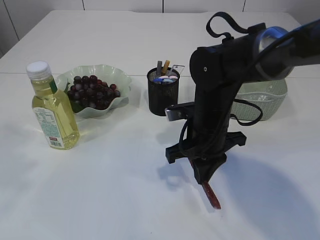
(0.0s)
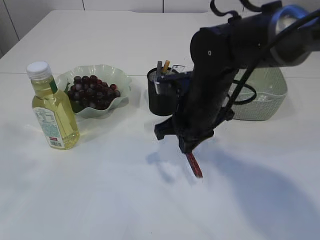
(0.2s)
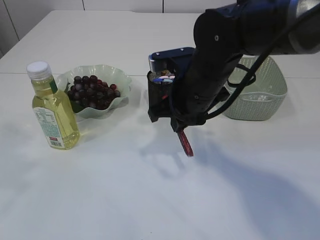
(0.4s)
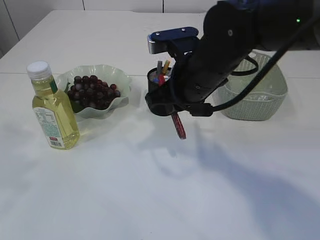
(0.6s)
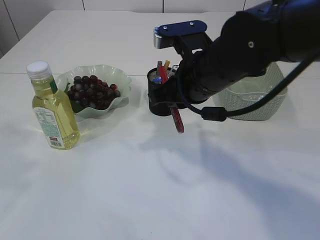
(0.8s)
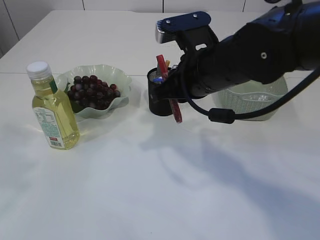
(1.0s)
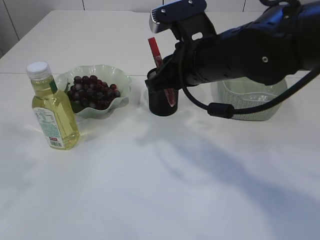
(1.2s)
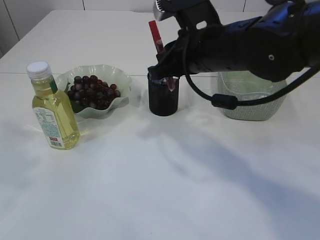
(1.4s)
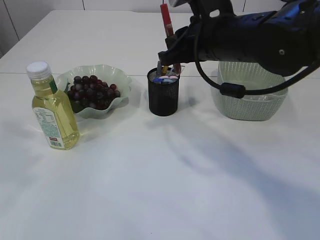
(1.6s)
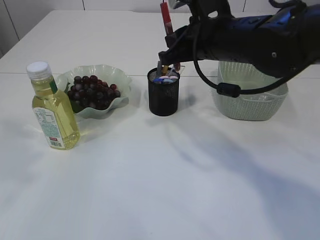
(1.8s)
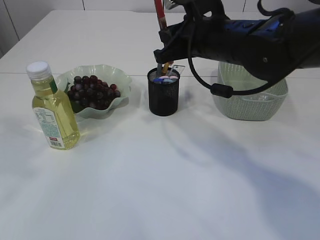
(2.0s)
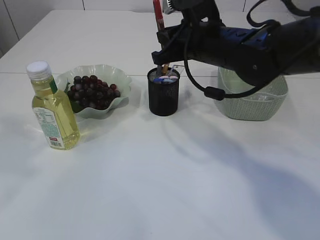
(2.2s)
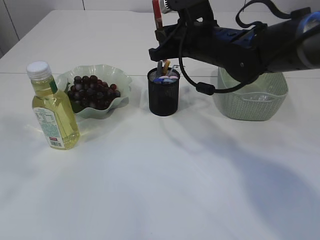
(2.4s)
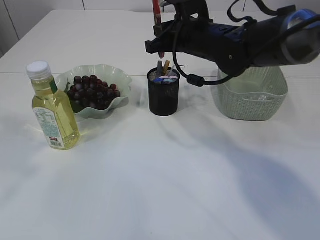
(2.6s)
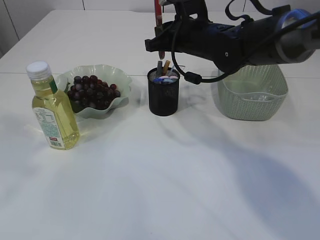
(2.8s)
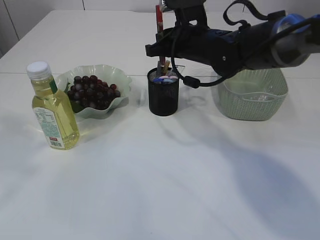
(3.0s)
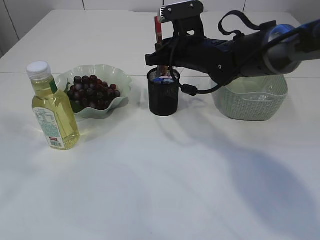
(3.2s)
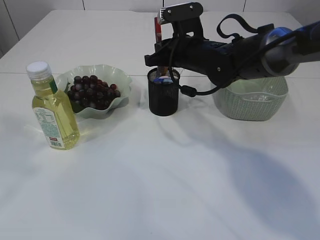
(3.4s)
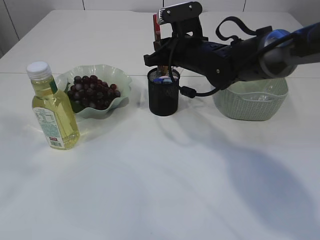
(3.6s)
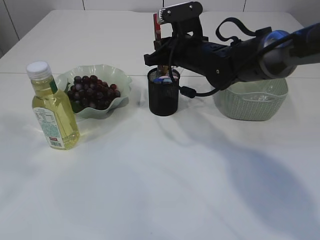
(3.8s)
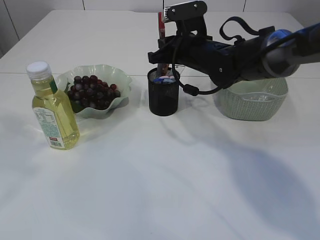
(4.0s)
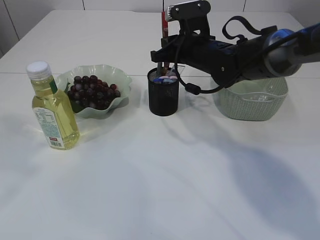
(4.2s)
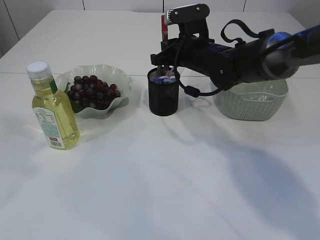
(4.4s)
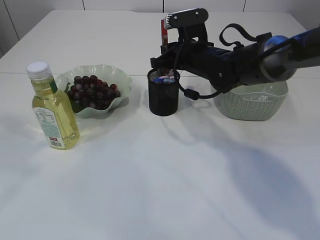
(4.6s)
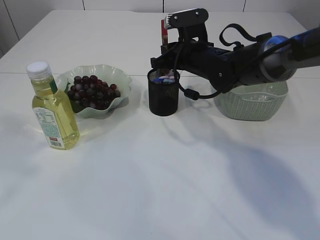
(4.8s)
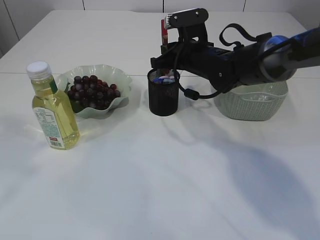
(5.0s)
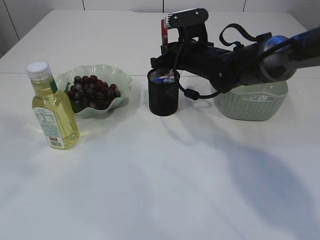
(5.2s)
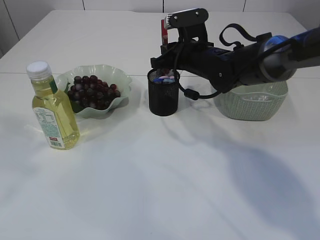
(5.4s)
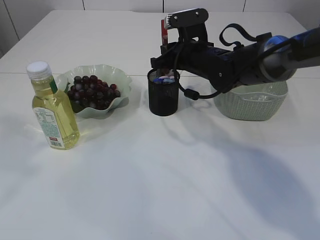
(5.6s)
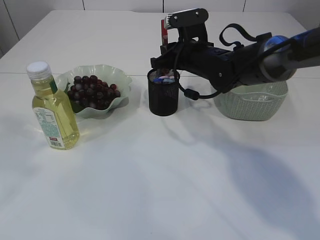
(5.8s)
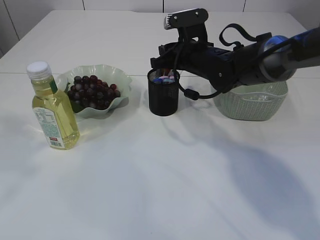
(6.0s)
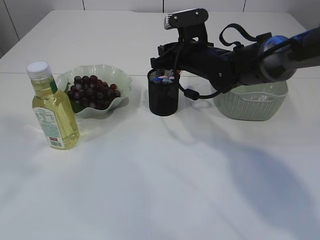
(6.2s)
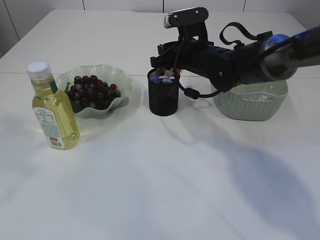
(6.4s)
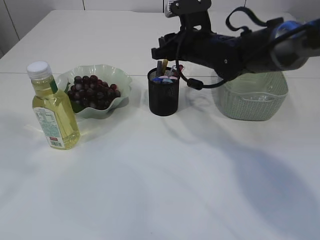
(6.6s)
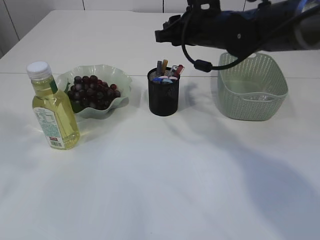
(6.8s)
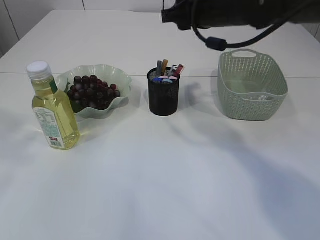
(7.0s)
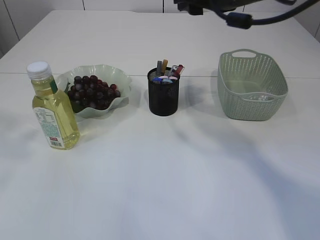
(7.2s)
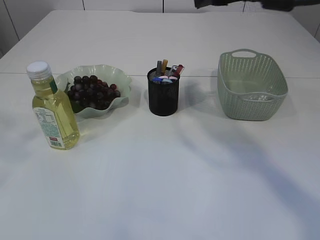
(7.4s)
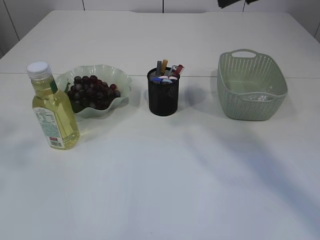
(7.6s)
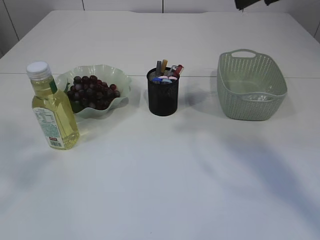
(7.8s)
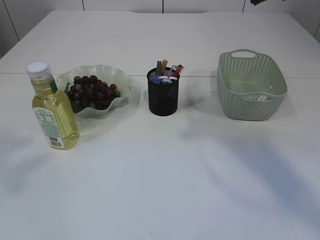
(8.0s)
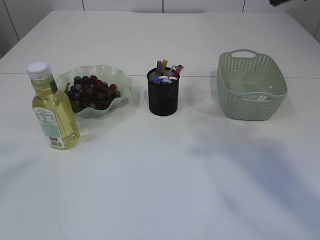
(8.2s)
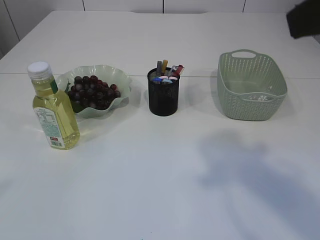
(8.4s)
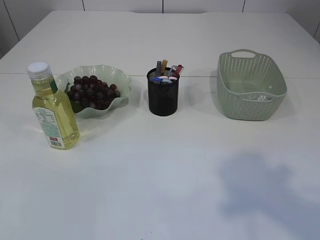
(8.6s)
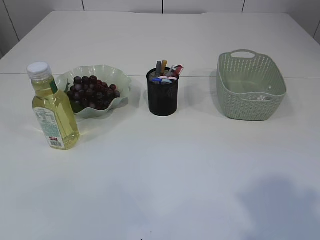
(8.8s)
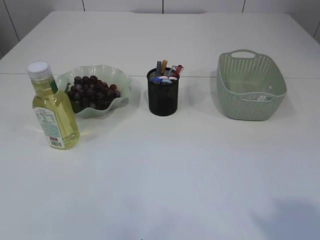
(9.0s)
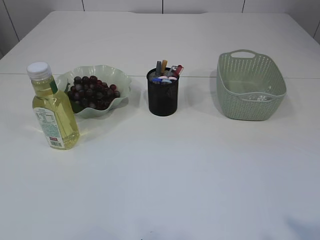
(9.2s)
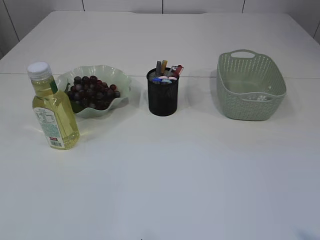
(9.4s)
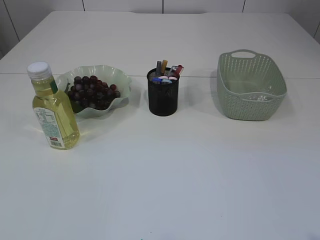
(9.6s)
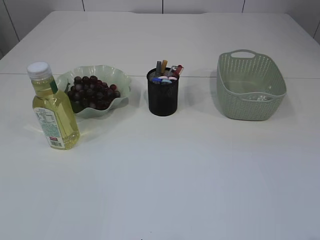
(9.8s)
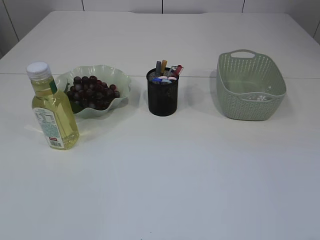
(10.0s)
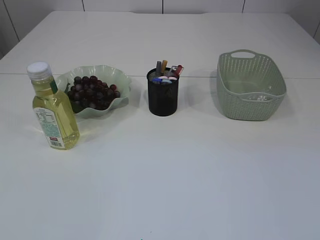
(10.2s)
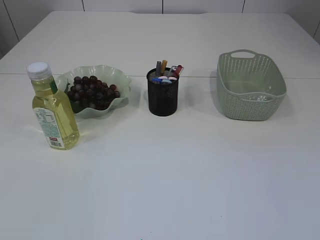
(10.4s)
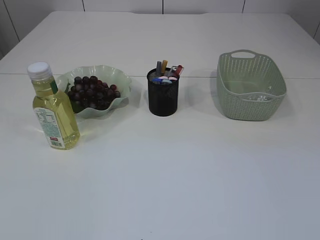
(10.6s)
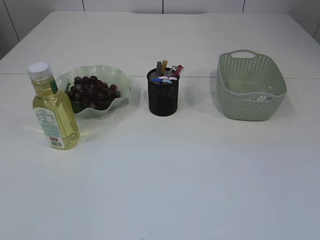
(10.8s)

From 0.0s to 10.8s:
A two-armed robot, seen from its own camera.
Step, from 0.4s to 6.6s: place the red glue into the pen holder.
From 0.0s to 1.6s: The right gripper travels upward by roughly 15 cm.
From 1.6s to 3.0s: The right gripper is displaced forward by roughly 10 cm.
From 3.0s to 4.6s: The grippers make only small movements.
From 4.6s to 6.2s: Neither gripper changes place.
From 6.2s to 7.8s: The left gripper opens up, while the right gripper is displaced upward and backward by about 30 cm.
From 7.8s to 9.2s: The right gripper heads backward, covering about 25 cm, while the left gripper heads backward, downward and to the left, covering some 20 cm.

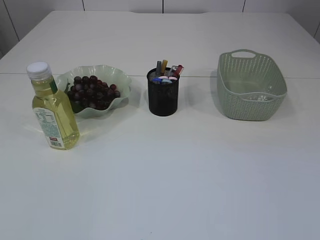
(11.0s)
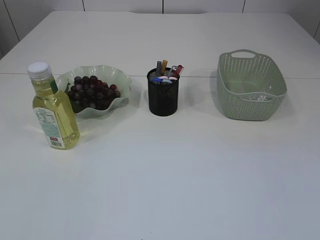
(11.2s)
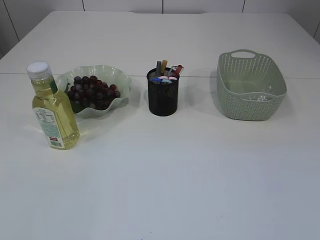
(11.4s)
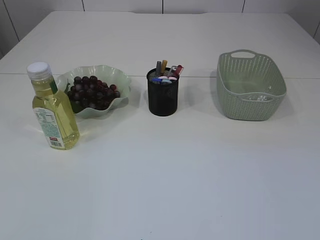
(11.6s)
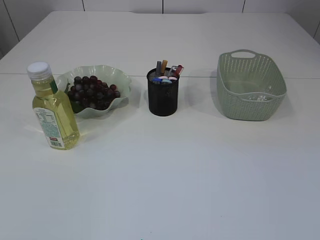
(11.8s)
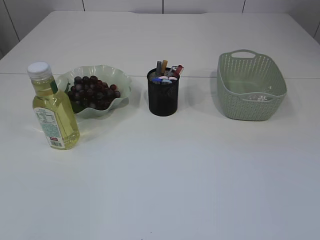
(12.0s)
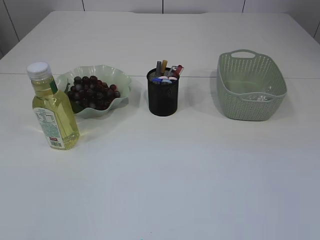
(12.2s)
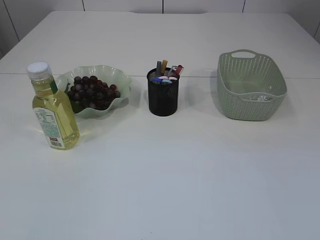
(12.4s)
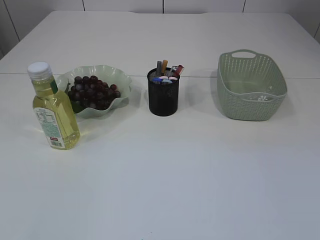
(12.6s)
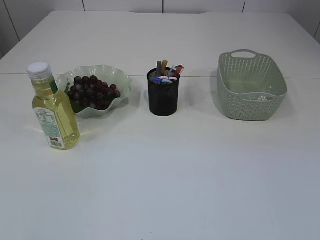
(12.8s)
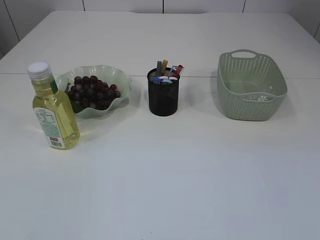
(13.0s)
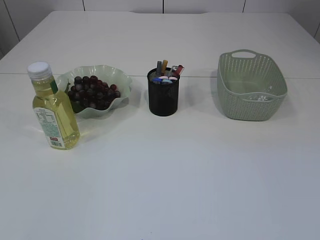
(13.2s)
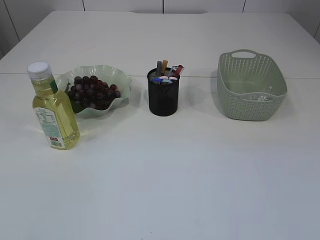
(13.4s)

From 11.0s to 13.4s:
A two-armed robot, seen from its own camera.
From 12.2s to 13.4s: Neither gripper changes place.

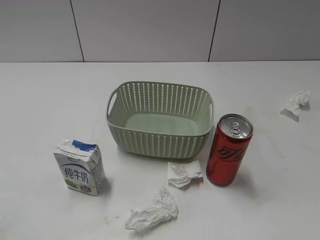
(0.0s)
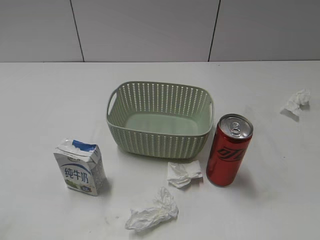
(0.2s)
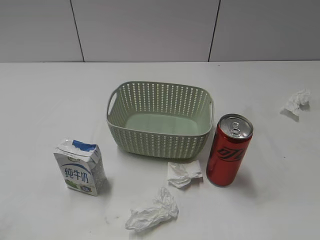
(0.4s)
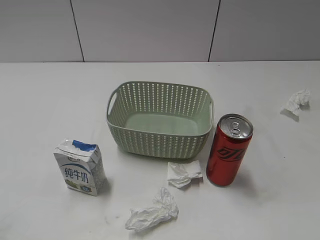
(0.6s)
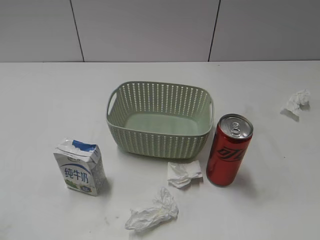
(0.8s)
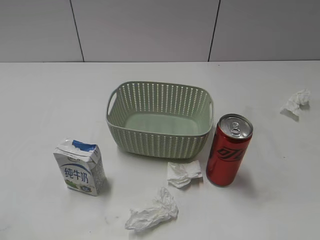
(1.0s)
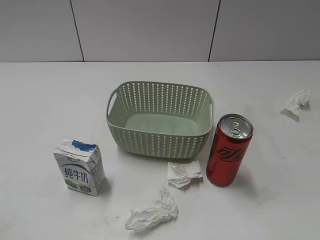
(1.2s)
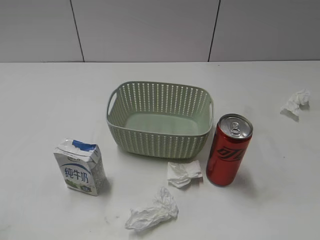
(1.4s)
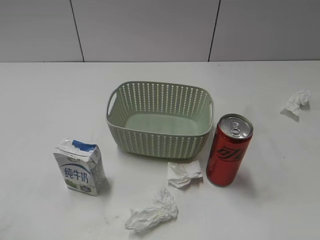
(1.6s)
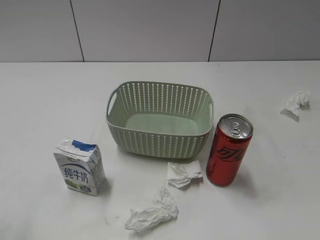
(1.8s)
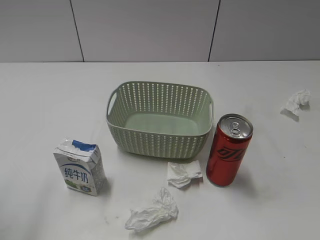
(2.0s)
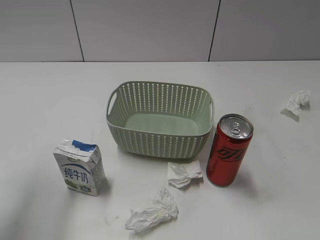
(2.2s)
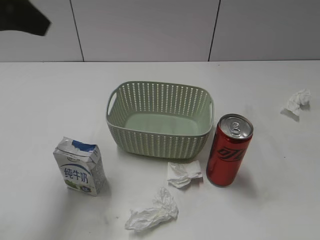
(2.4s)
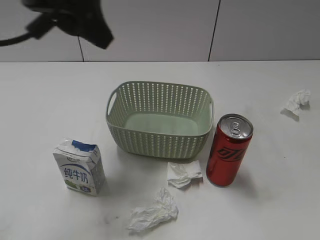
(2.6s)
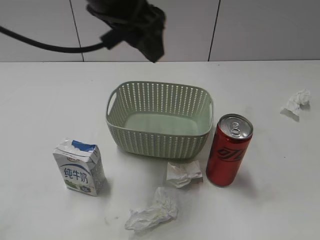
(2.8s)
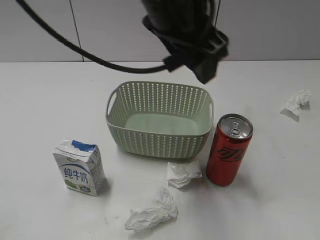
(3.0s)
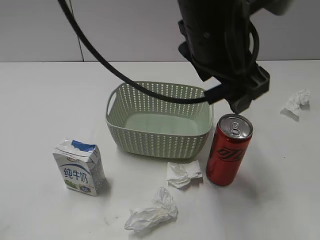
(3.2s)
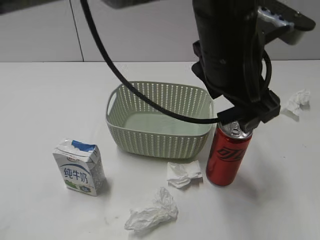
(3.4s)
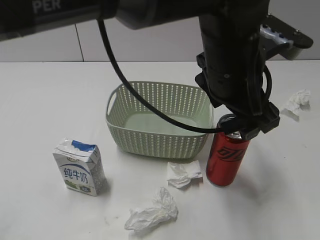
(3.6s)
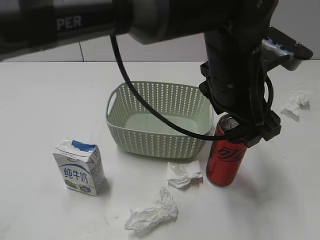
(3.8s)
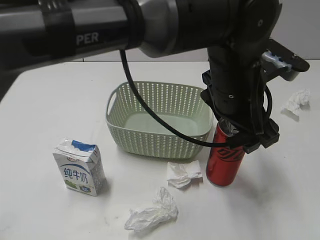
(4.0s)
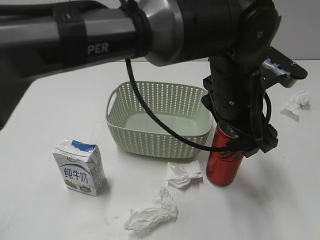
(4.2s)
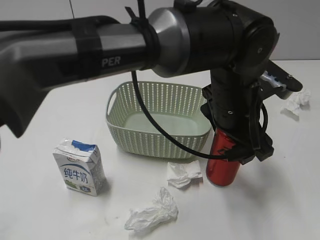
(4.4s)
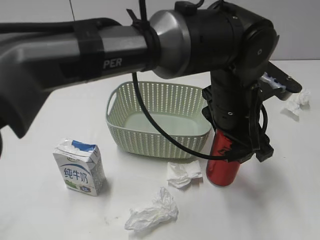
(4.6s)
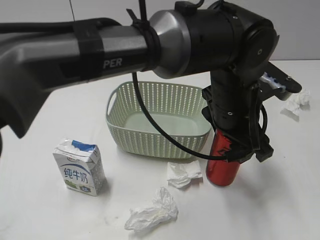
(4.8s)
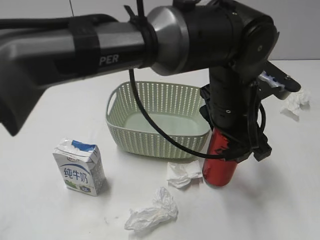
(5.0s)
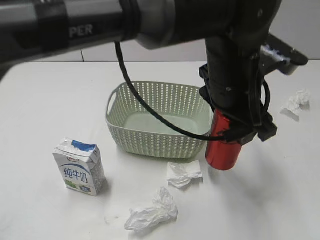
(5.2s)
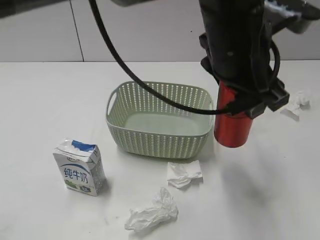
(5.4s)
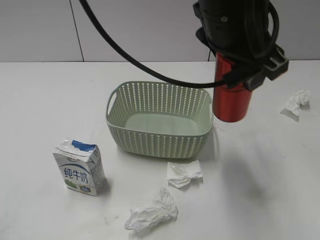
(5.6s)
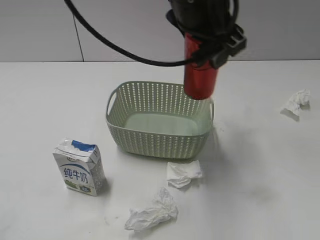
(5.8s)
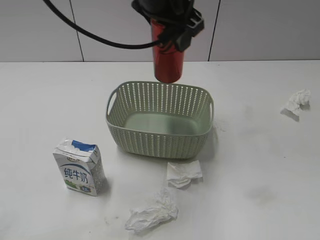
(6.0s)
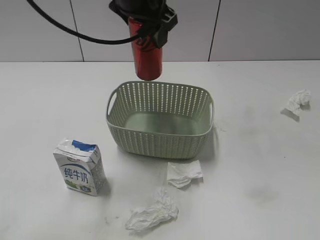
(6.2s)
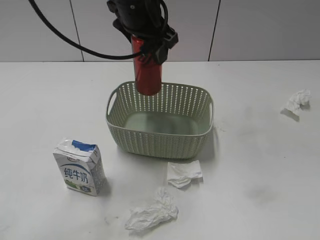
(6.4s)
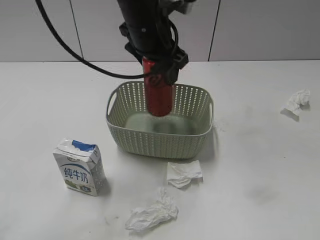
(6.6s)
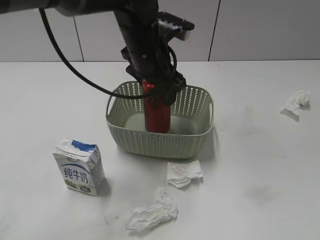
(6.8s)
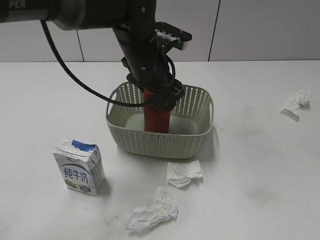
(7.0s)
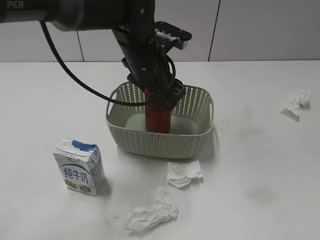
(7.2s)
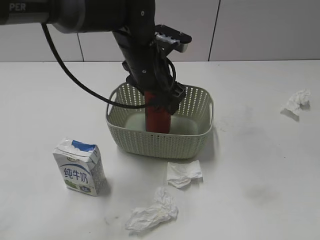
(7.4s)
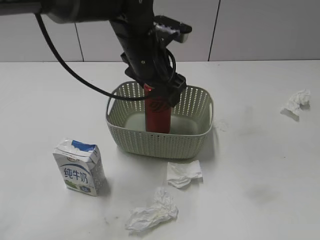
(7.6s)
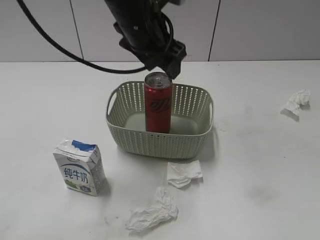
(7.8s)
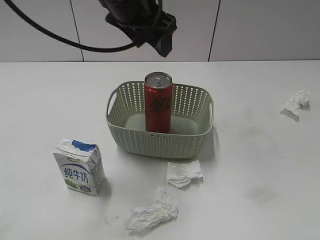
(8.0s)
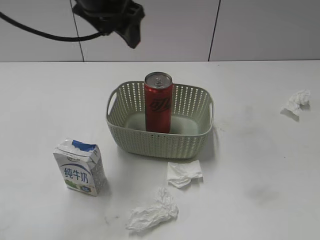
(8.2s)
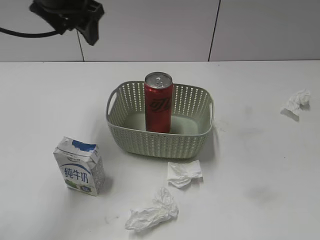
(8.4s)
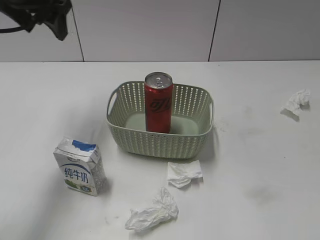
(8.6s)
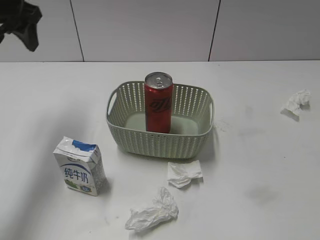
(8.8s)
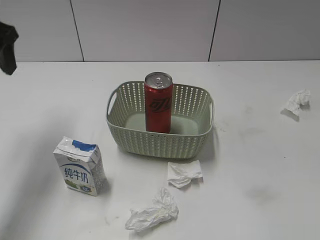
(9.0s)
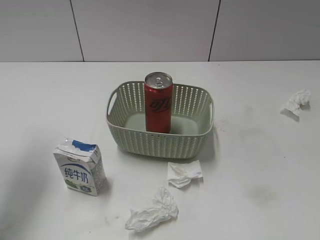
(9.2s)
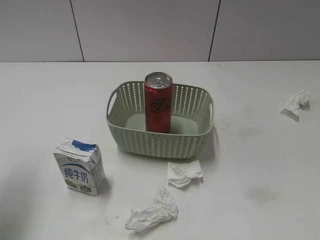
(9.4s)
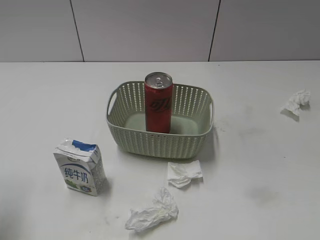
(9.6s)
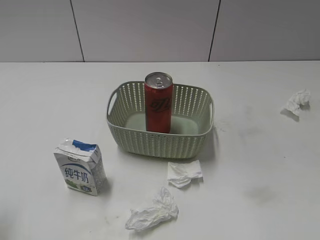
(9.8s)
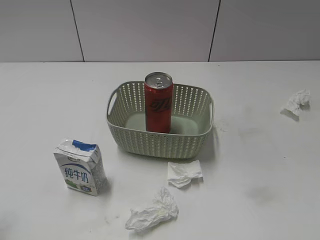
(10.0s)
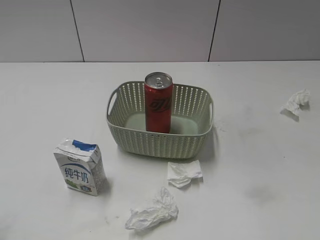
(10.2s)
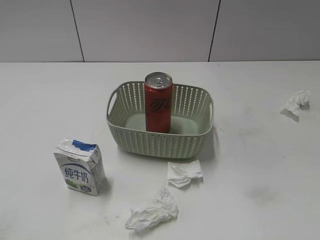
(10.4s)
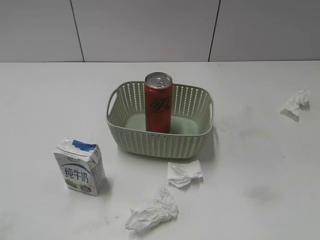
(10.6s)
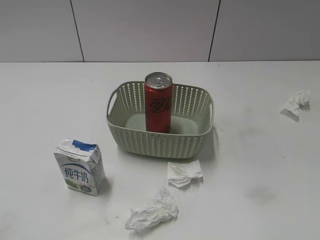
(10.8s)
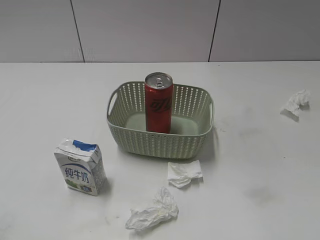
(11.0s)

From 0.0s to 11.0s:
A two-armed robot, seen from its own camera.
From 1.6s to 3.2s: The left gripper shifts about 40 cm to the right and forward, and opens up.
From 3.2s to 4.8s: The left gripper heads downward and to the right, covering some 15 cm, and closes its fingers.
From 4.8s to 6.2s: The left gripper travels to the left, upward and forward by roughly 20 cm.
From 6.2s to 7.8s: The left gripper is displaced downward by about 5 cm, and opens.
From 7.8s to 9.4s: The left gripper moves to the left and backward, about 30 cm.
From 9.4s to 11.0s: The left gripper heads backward, covering some 25 cm.
